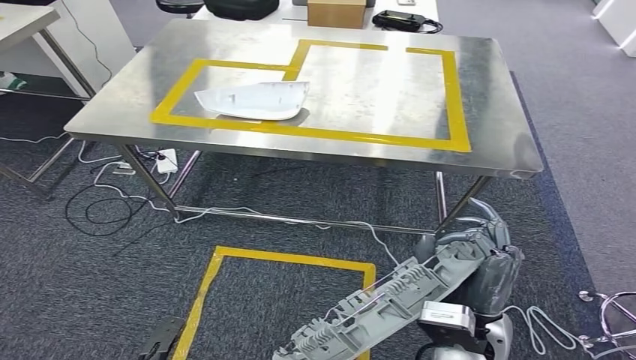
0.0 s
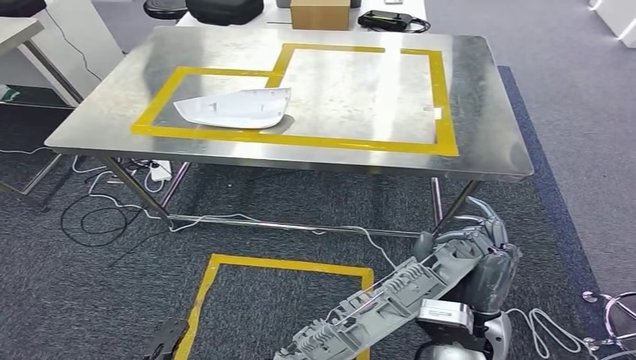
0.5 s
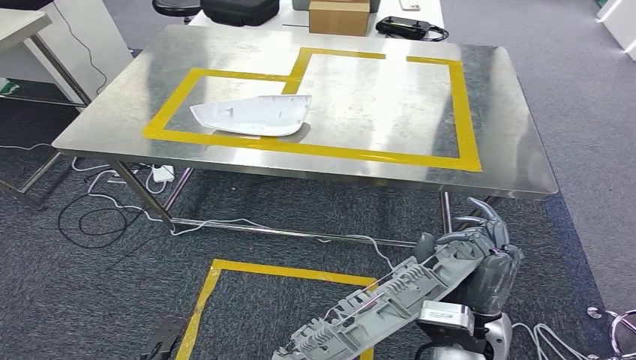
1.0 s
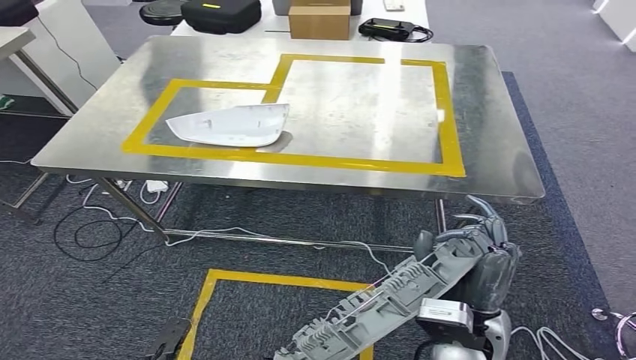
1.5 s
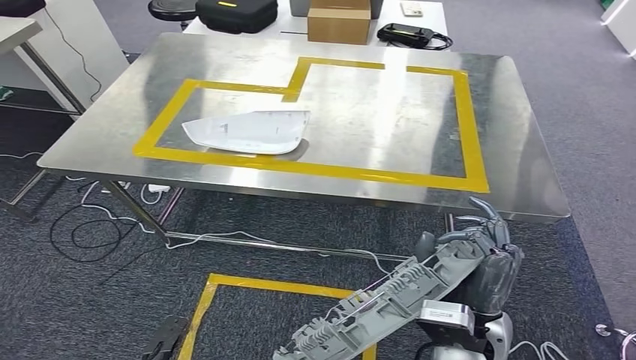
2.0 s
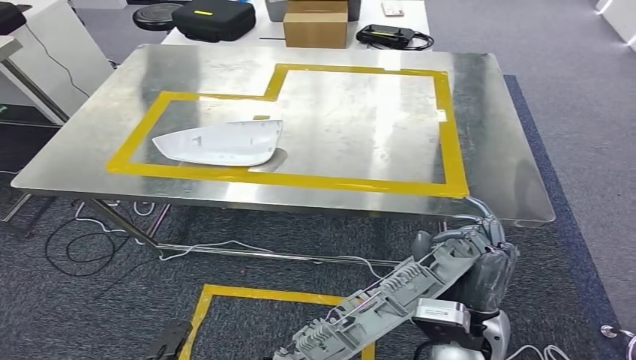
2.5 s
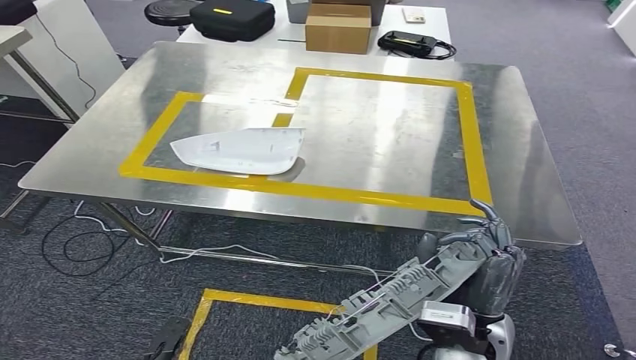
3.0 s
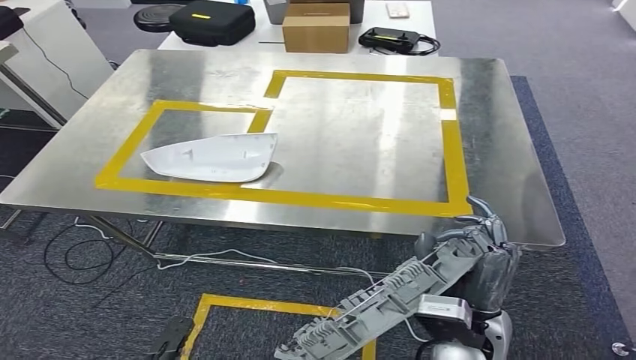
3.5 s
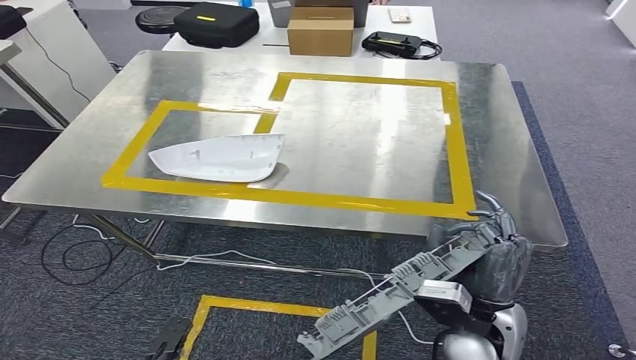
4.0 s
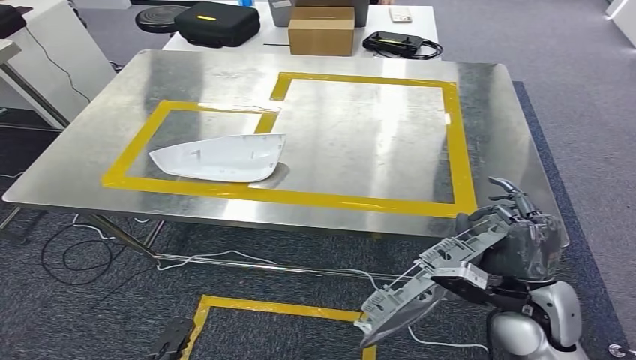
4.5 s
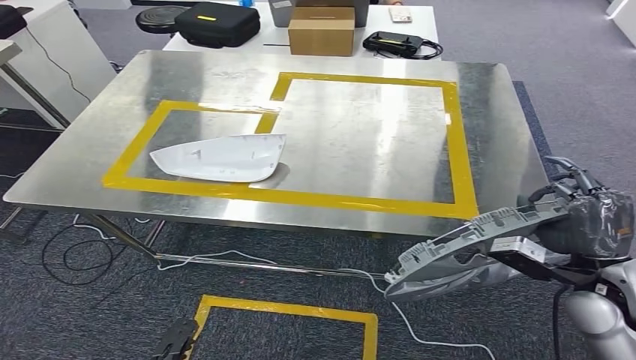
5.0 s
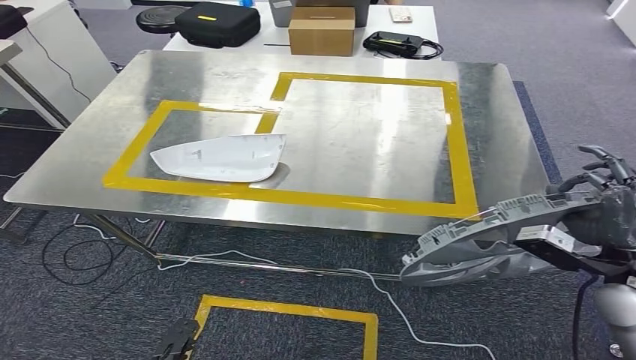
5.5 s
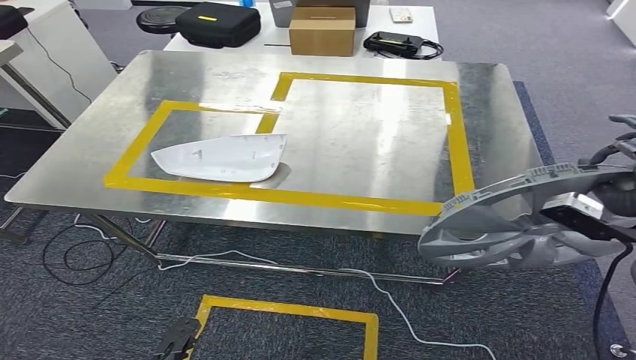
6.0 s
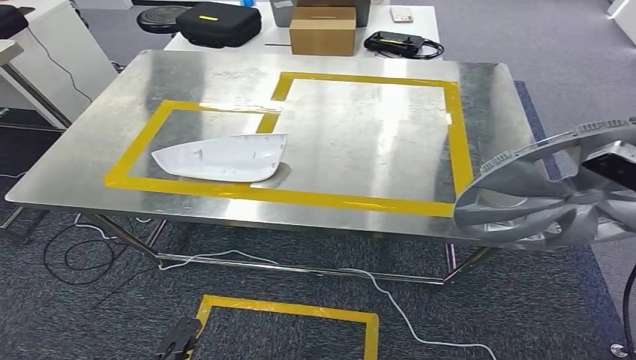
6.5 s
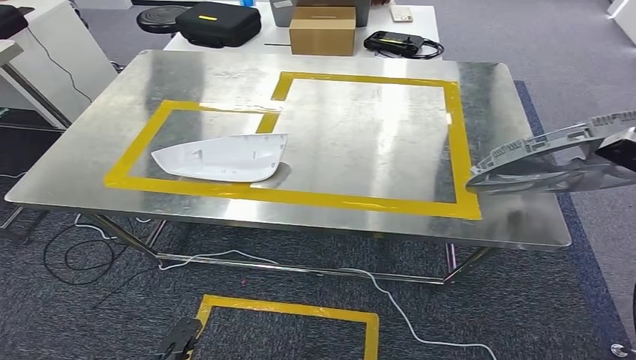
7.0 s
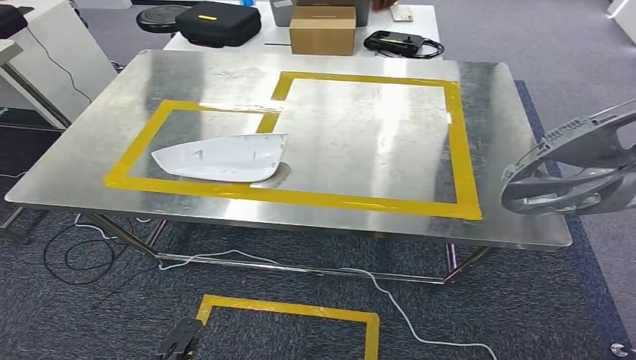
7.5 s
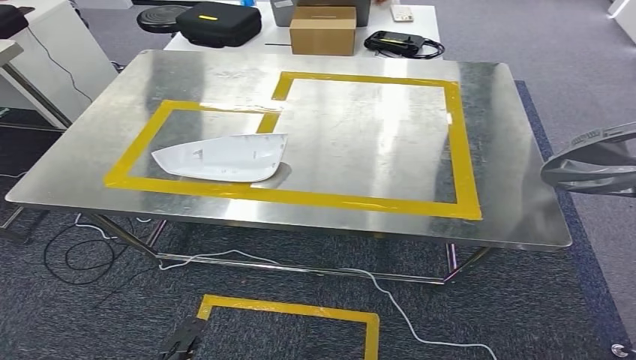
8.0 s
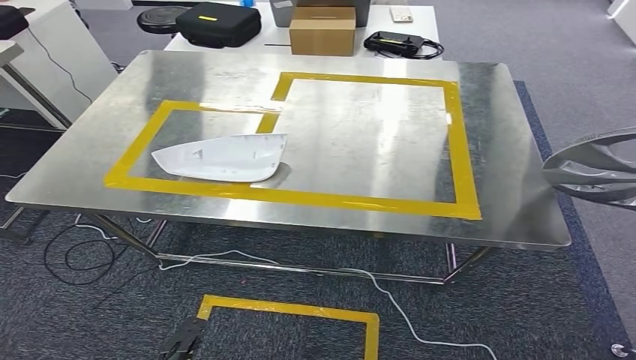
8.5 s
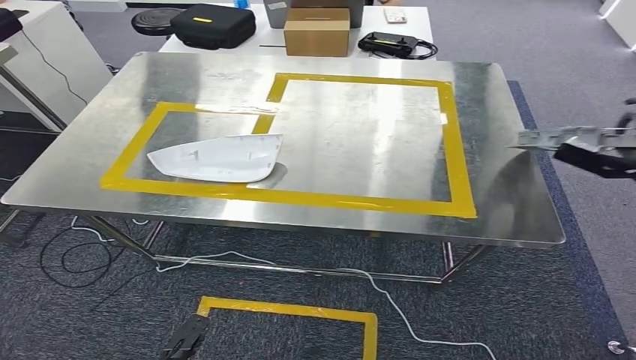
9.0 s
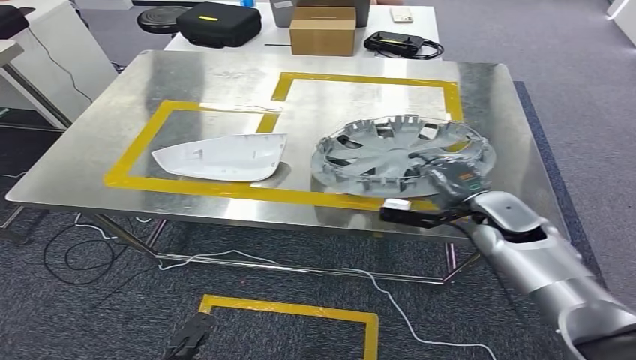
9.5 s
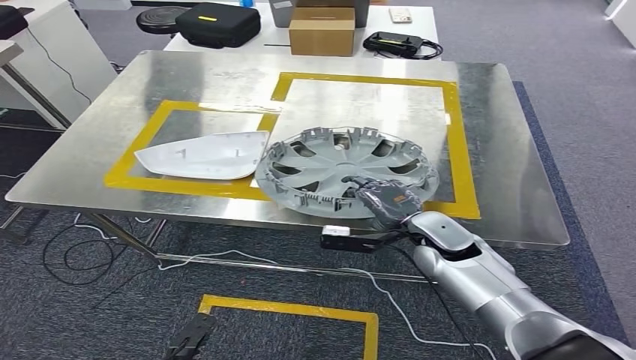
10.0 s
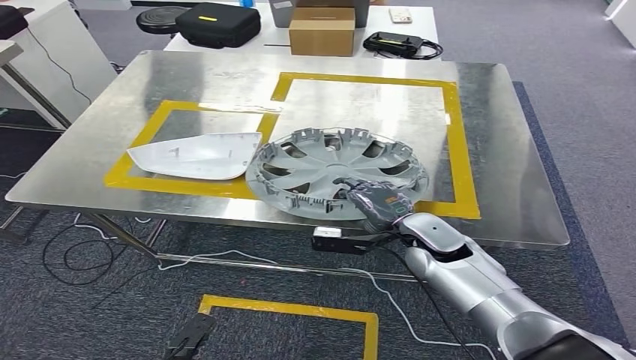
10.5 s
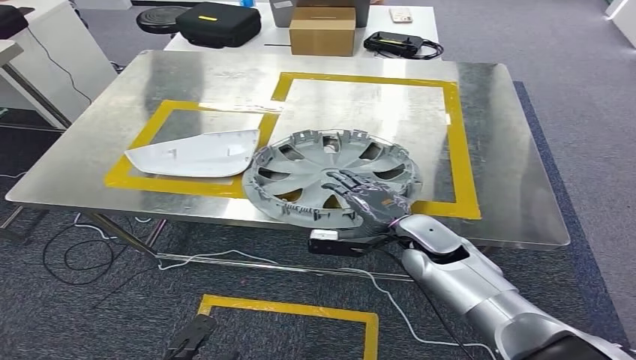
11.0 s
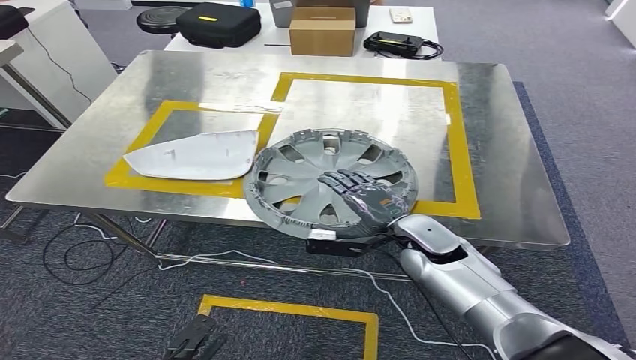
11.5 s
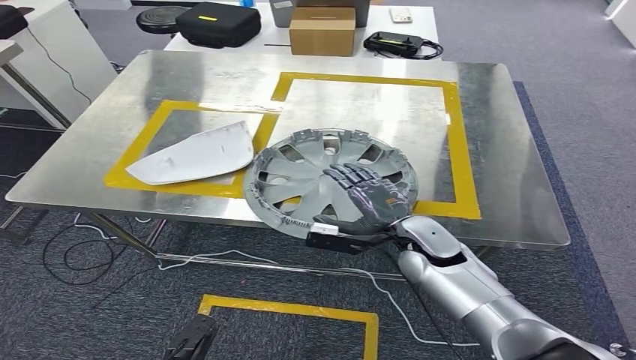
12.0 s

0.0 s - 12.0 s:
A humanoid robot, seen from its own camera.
Step, 0.0 s - 4.0 s: Move the small component to the workbench.
4.0 s - 6.0 s: The right hand heads to the right, upward and forward, covering some 25 cm.
6.0 s - 8.0 s: The right hand heads to the right, upward and forward, covering some 20 cm.
8.0 s - 10.0 s: The right hand shifts roughly 40 cm to the left and downward.
10.0 s - 12.0 s: The hands make only small movements.

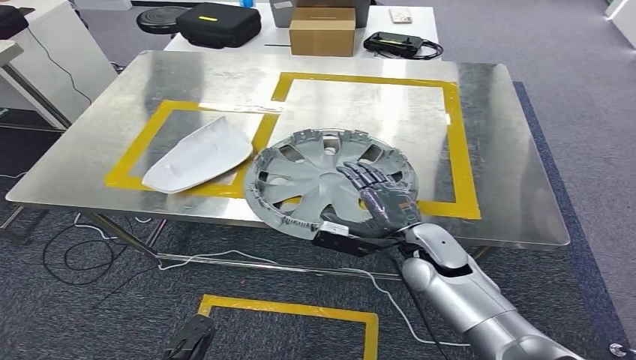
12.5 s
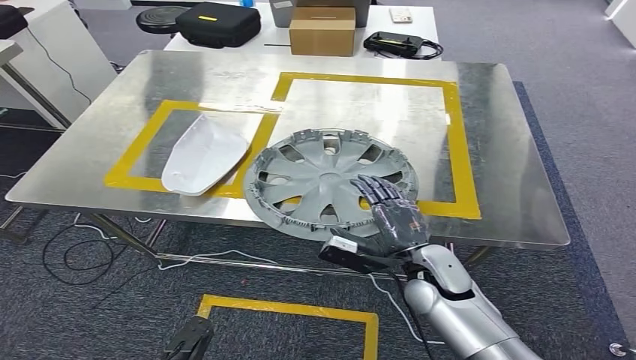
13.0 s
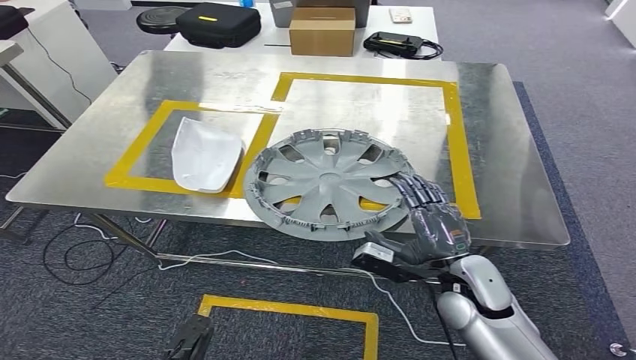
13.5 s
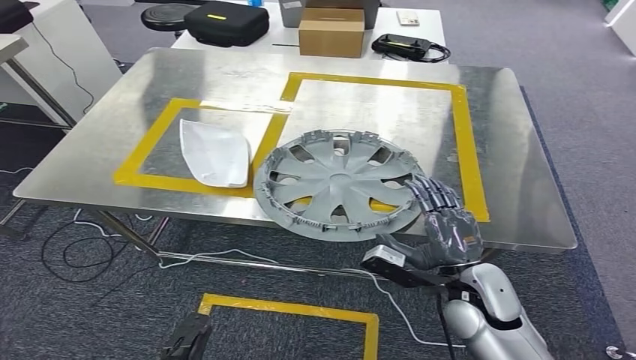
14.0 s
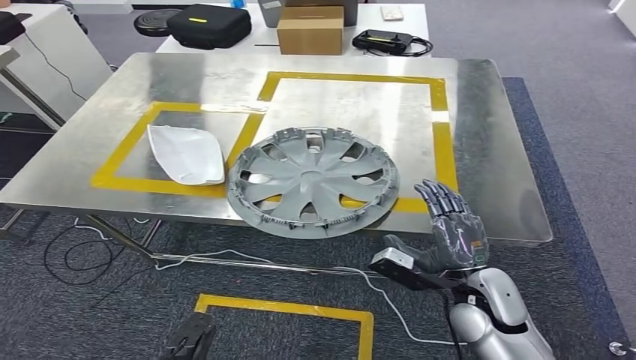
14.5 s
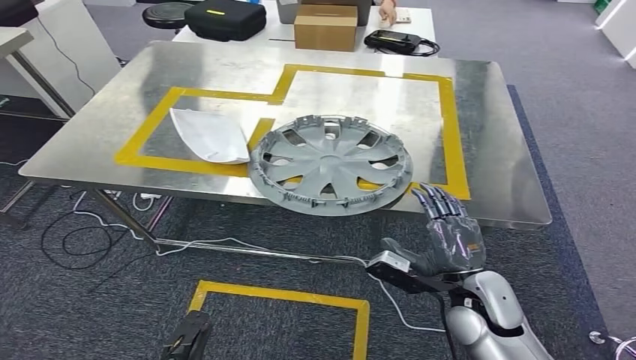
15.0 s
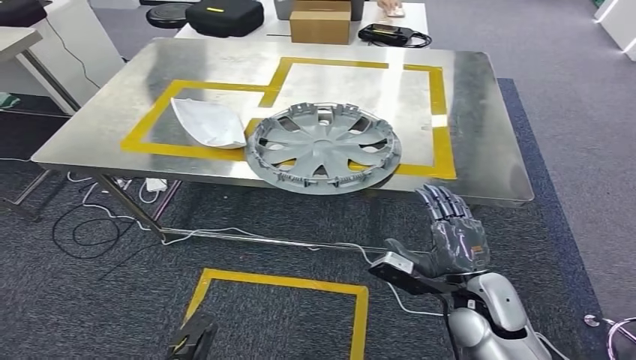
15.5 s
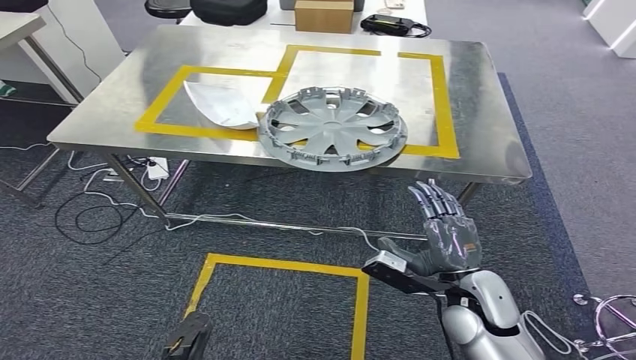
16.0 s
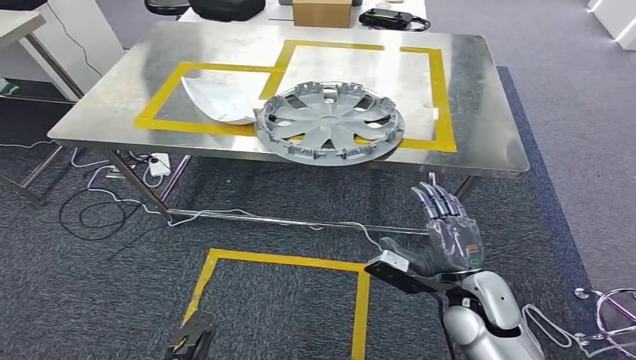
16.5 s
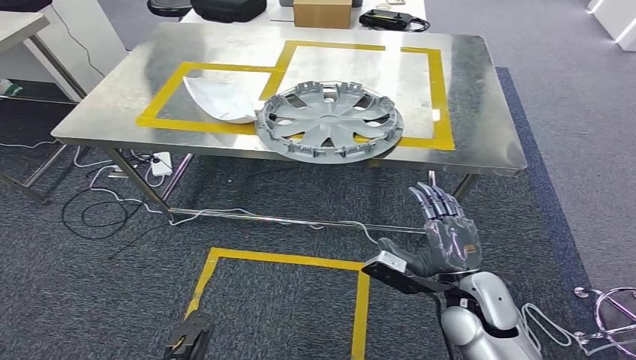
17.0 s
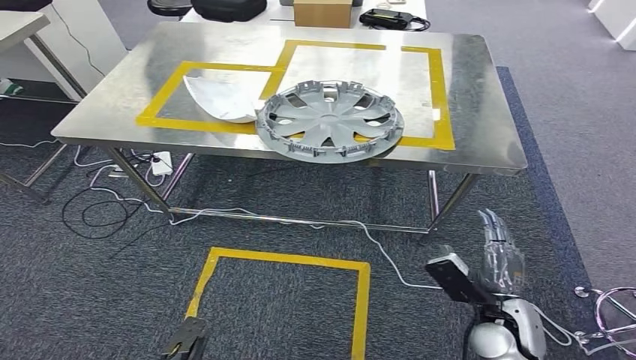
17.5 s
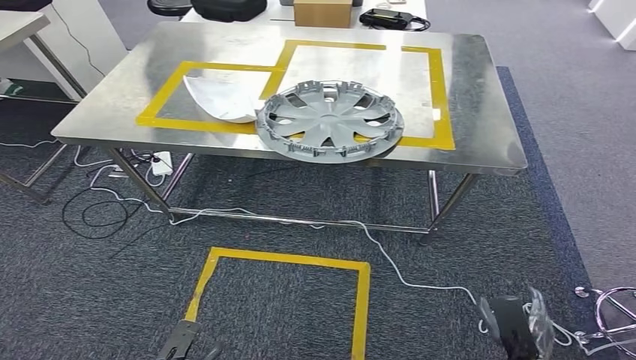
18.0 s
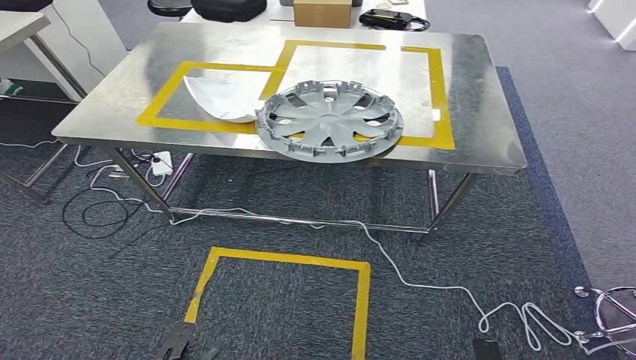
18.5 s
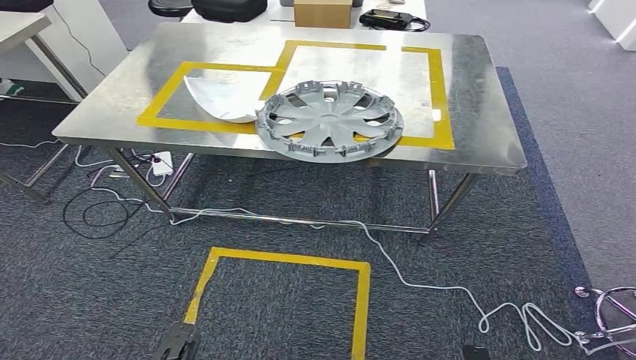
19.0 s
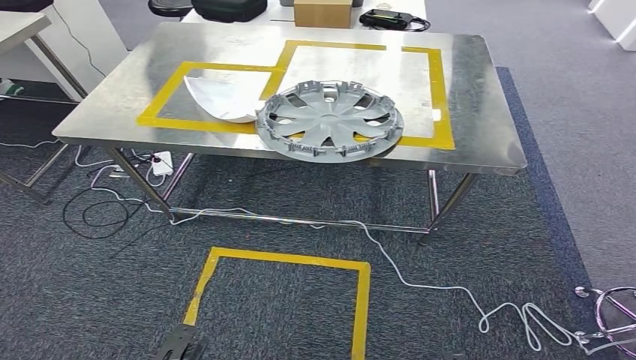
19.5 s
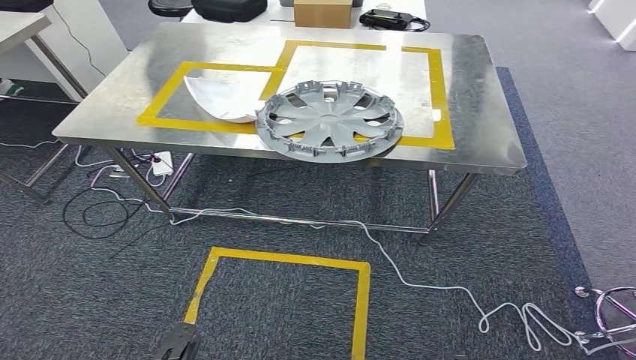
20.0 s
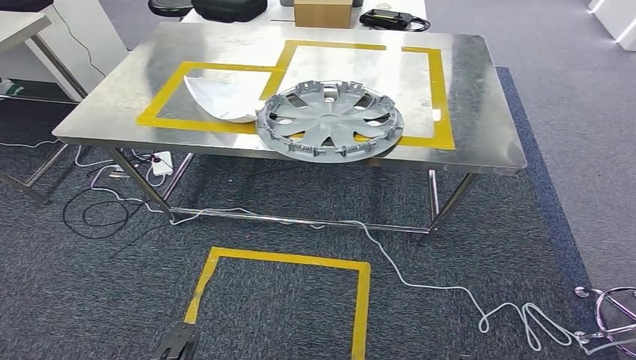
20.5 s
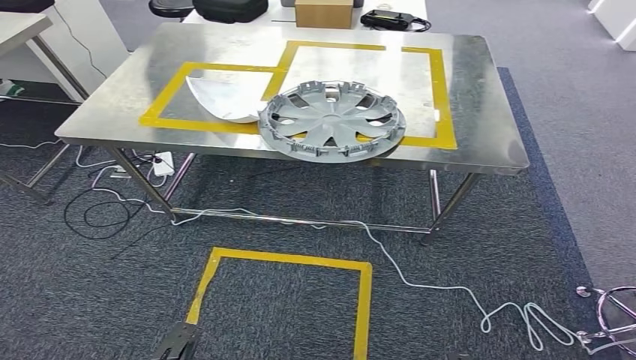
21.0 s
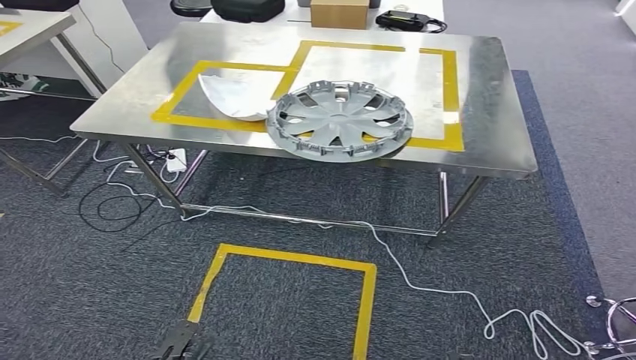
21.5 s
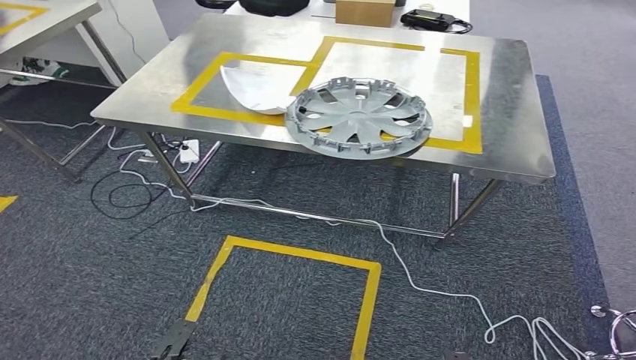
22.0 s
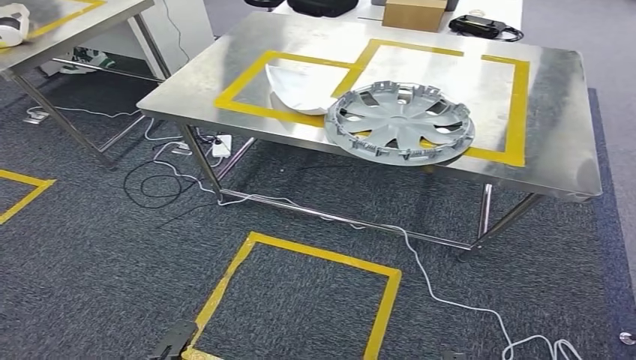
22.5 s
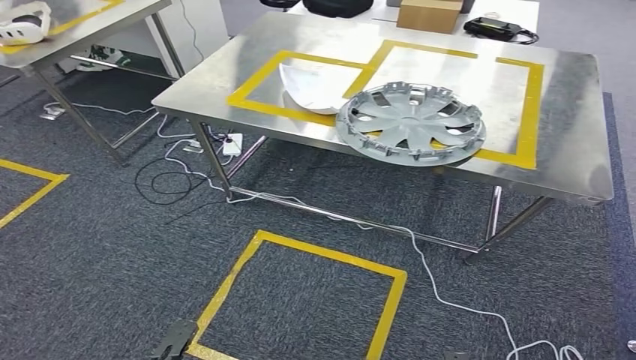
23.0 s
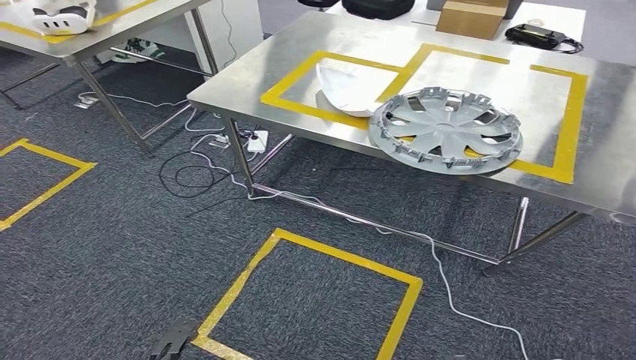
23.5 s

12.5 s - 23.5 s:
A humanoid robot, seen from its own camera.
18.0 s - 20.0 s: The right hand heads backward, to the left and downward, covering approximately 15 cm.
